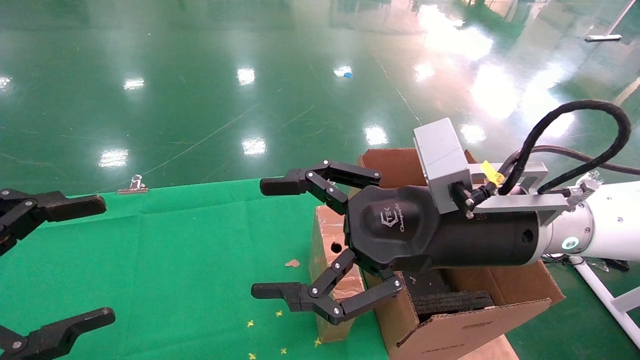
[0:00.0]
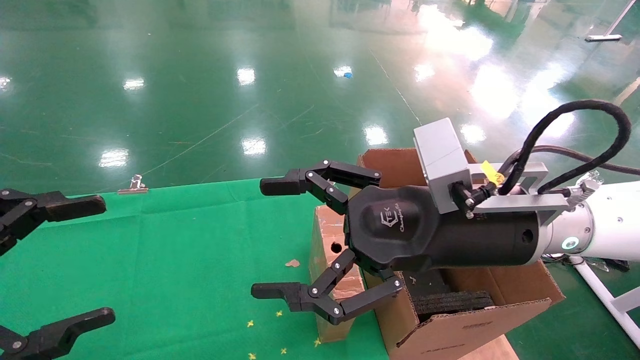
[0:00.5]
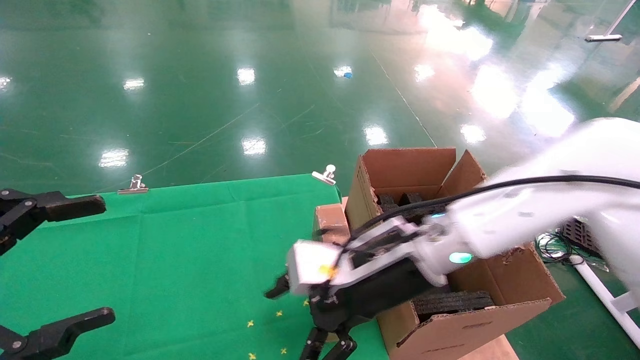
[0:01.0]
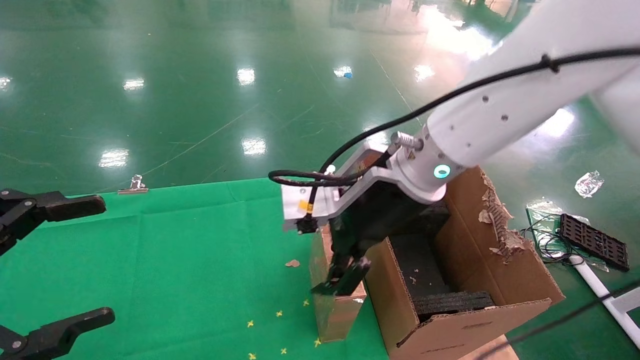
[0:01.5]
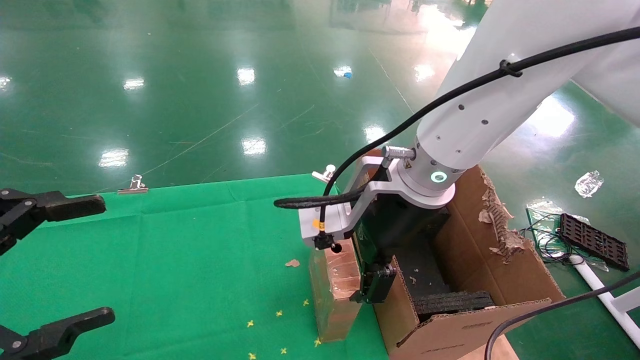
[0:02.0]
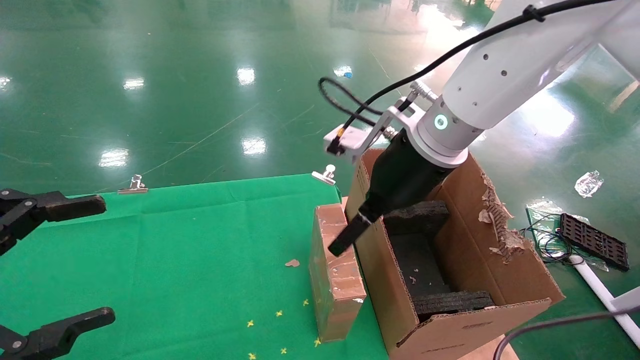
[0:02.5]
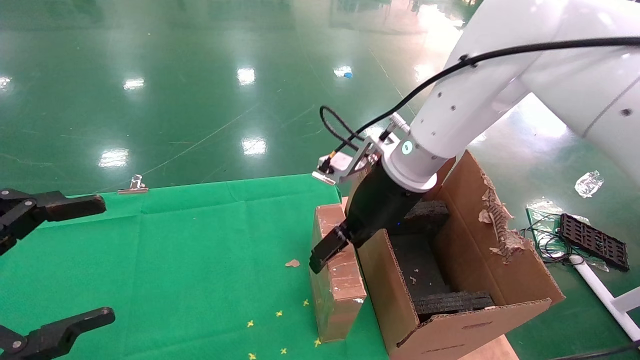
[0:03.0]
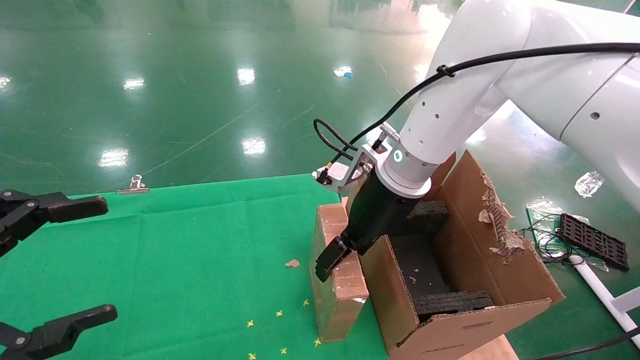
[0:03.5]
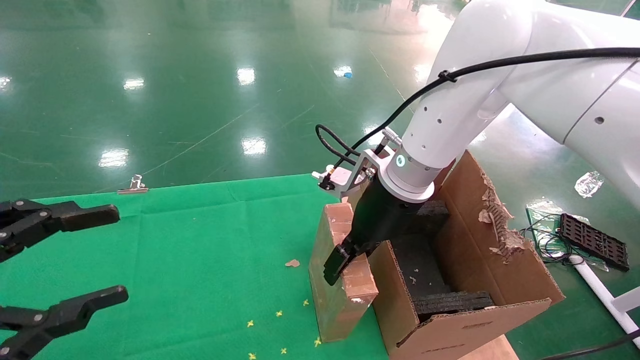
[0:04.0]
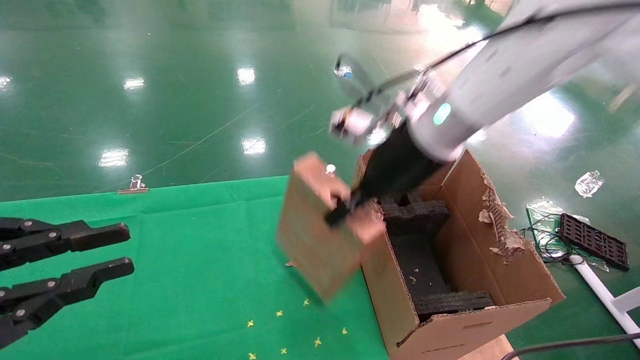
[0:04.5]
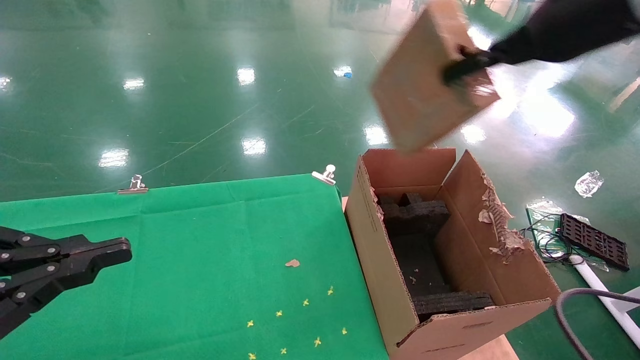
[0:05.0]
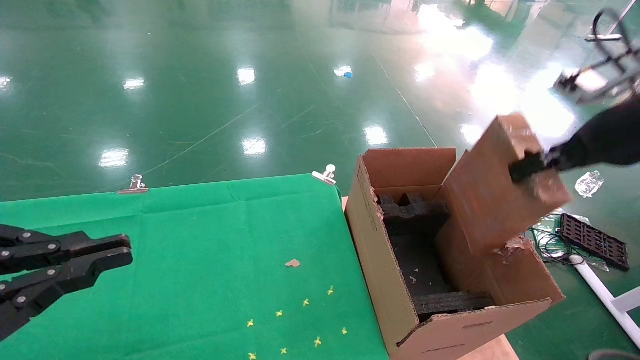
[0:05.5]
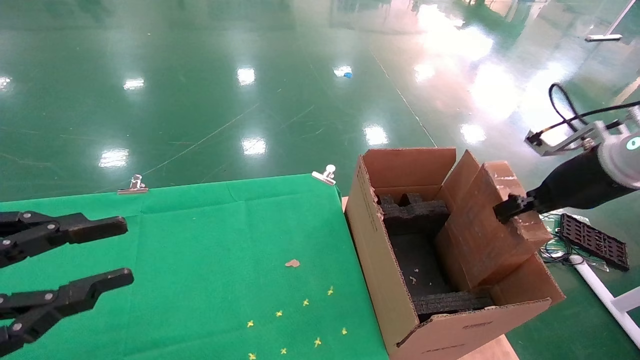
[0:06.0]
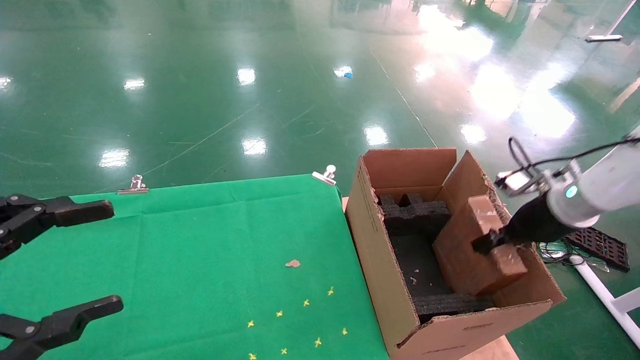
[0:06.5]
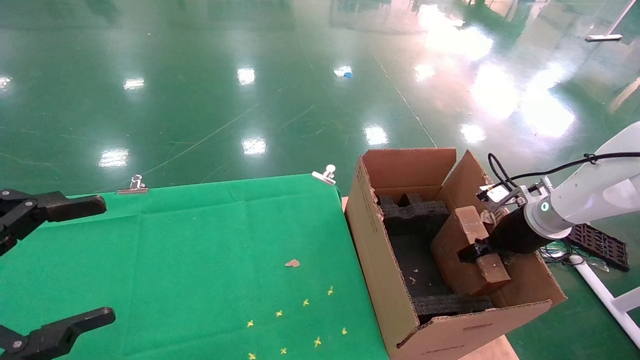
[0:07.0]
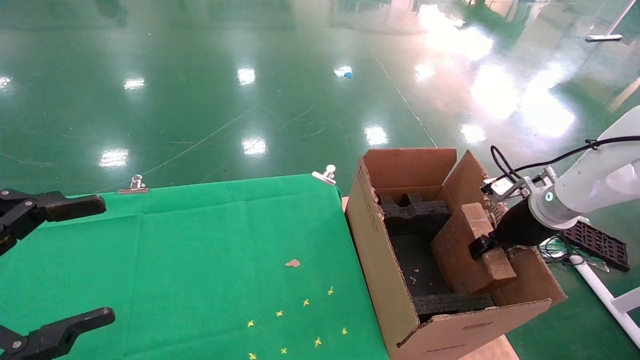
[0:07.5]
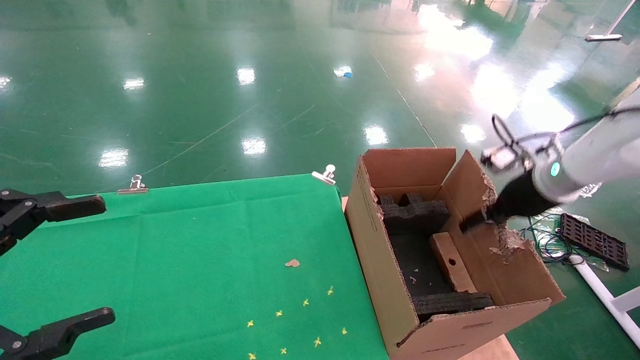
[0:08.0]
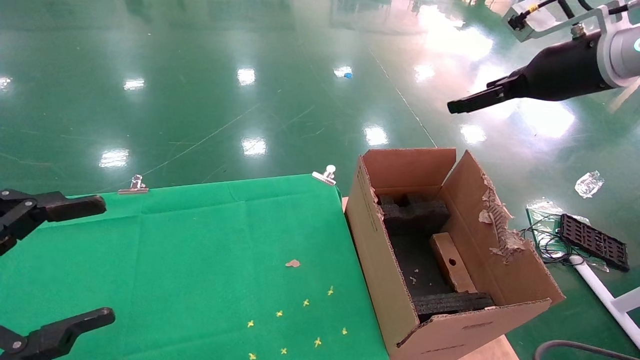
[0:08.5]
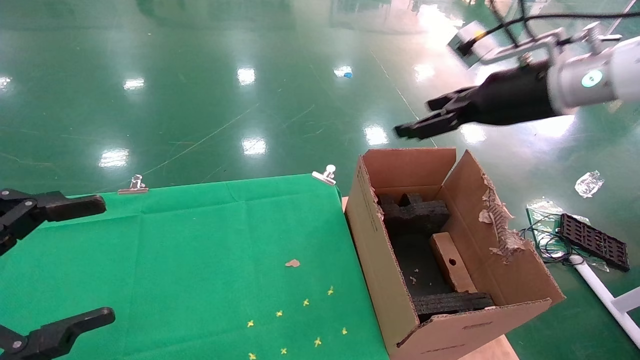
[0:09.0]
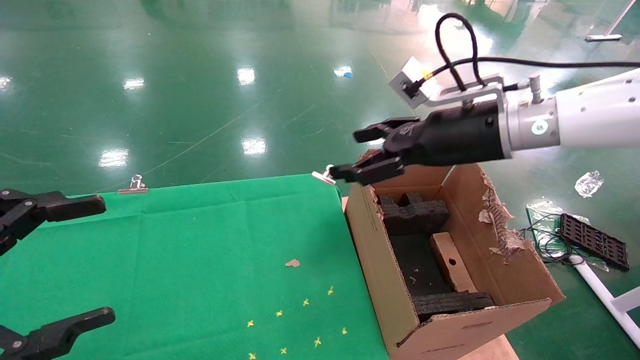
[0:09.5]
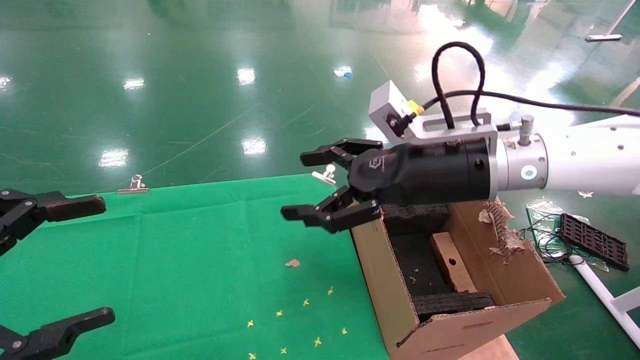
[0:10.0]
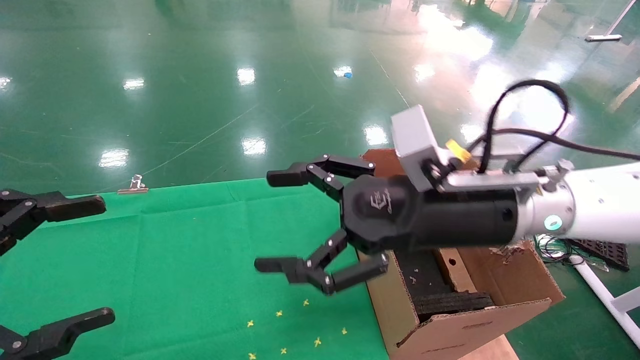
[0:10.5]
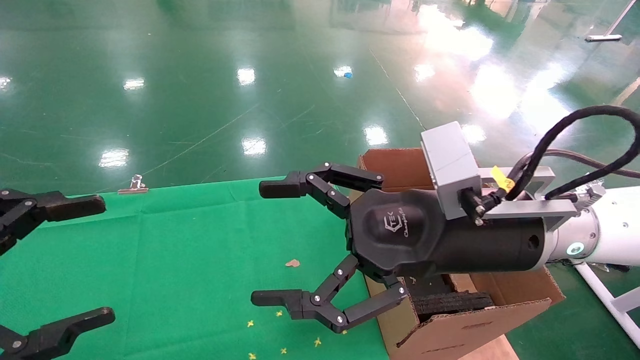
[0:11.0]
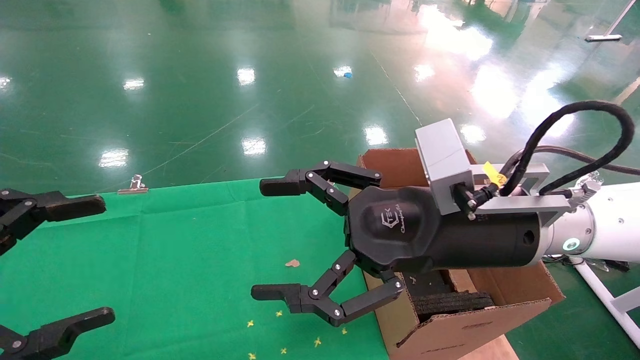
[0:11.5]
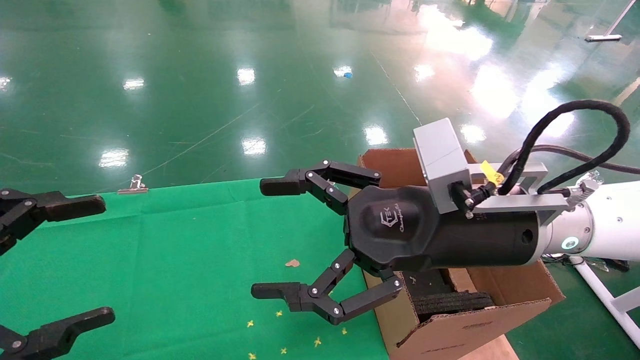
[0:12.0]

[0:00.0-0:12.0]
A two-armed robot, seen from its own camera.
Task of the whole recording: using a robotic arm to pick up a cardboard box and palace it the carton.
Step, 0:01.0 to 0:04.0: Pick up the mouse and the power cord paper box.
Step, 0:04.5 to 0:08.0: Place the mouse and the power cord paper box into the container.
0:00.0 to 0:02.0: The right gripper shifts roughly 10 cm forward and to the left.
0:02.0 to 0:04.0: The right gripper shifts about 5 cm forward, and closes its fingers.
0:04.0 to 0:06.0: The right gripper heads to the right, covering some 30 cm, and closes its fingers. Meanwhile the left gripper closes its fingers.
0:06.0 to 0:08.0: The right gripper travels forward by about 5 cm, moves roughly 10 cm downward and comes back, and opens up. Meanwhile the left gripper opens up.
0:08.0 to 0:10.0: The right gripper is displaced to the left by approximately 20 cm, and opens.
0:10.0 to 0:12.0: The right gripper shifts roughly 5 cm backward.

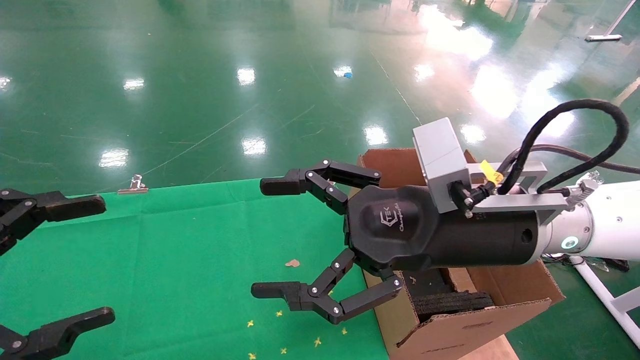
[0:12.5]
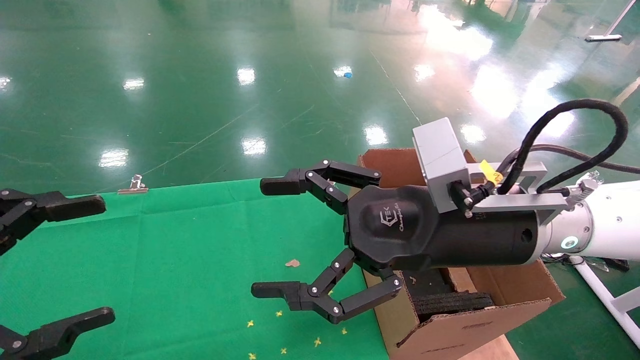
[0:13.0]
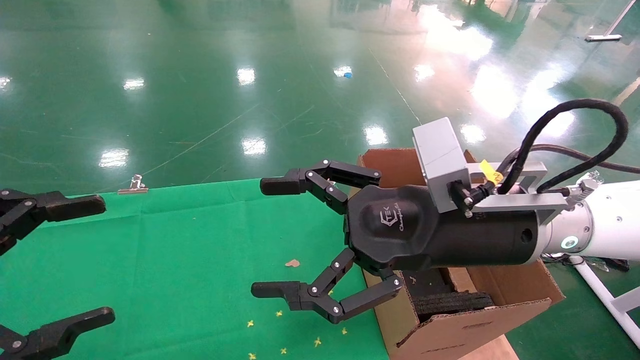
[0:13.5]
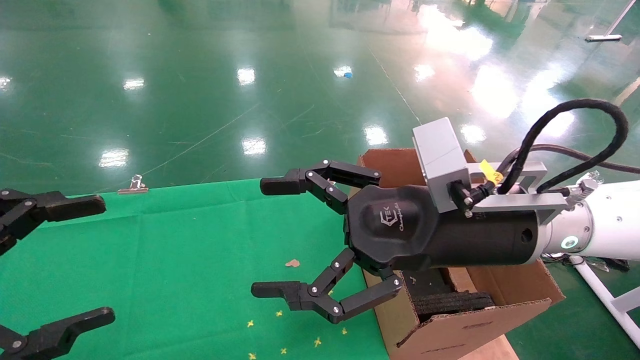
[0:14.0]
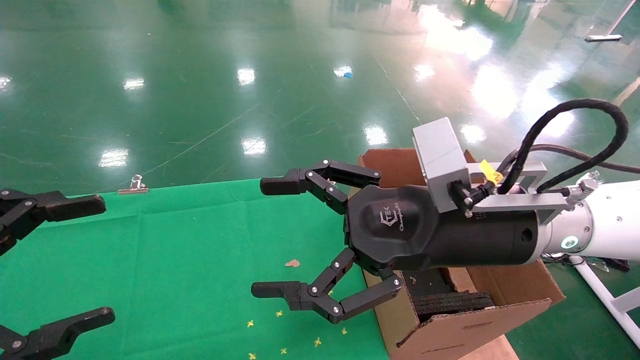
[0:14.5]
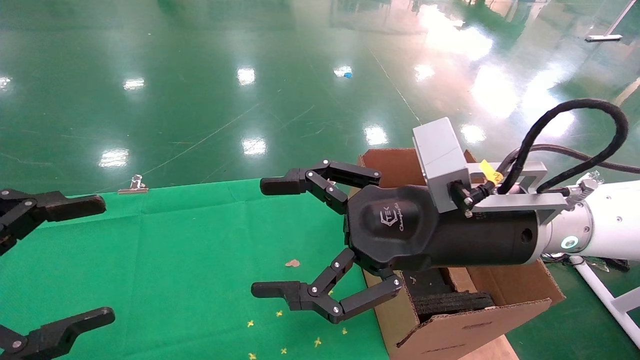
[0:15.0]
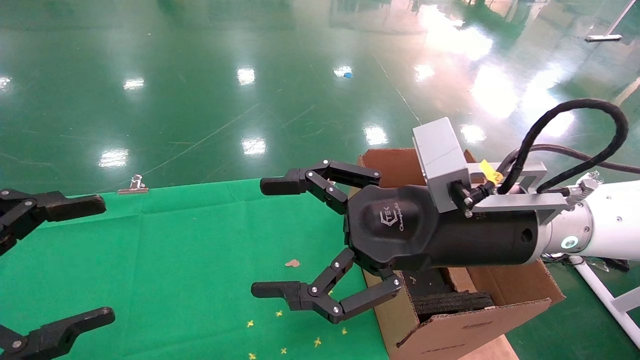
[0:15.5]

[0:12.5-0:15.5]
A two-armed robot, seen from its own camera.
Task of the whole recording: using a robotic arm to pick up a cardboard box and palace it the carton.
0:12.5 to 0:15.5: Both grippers stay about where they are.
